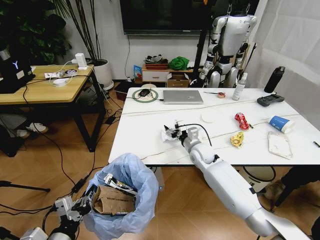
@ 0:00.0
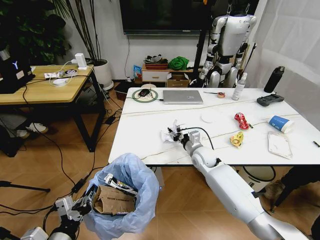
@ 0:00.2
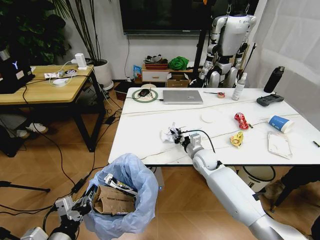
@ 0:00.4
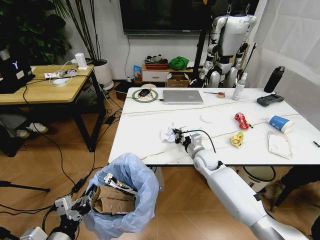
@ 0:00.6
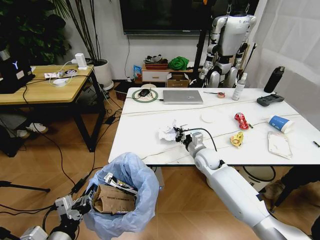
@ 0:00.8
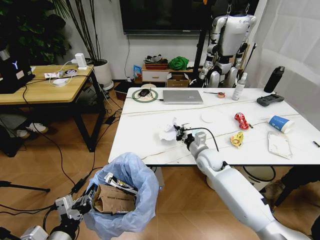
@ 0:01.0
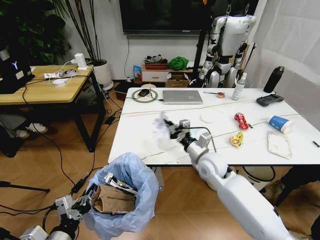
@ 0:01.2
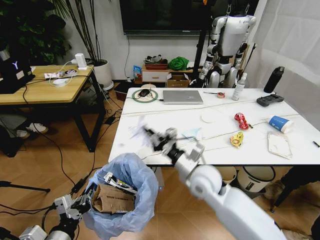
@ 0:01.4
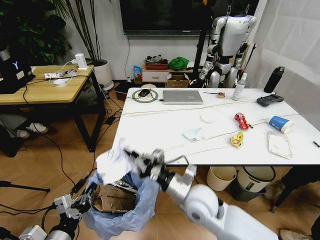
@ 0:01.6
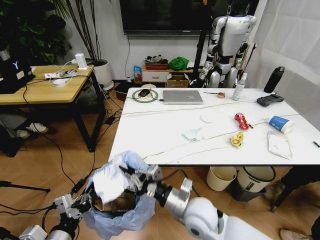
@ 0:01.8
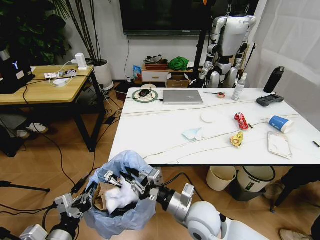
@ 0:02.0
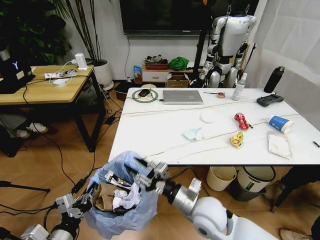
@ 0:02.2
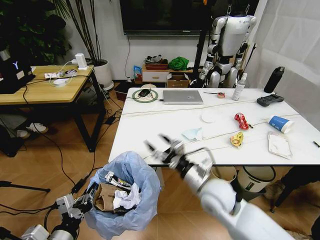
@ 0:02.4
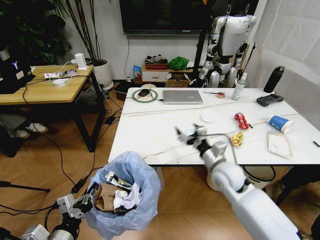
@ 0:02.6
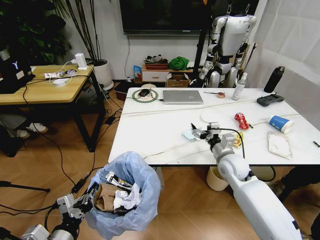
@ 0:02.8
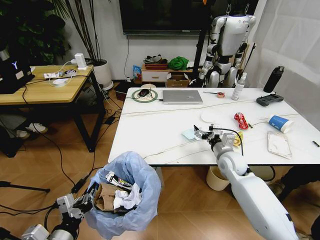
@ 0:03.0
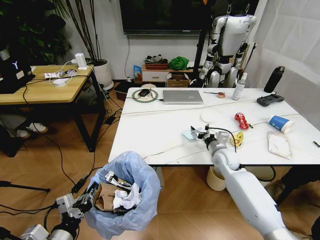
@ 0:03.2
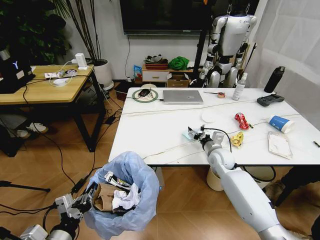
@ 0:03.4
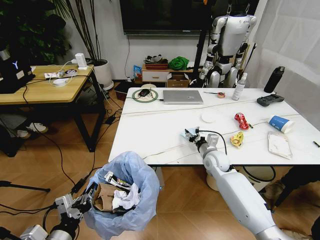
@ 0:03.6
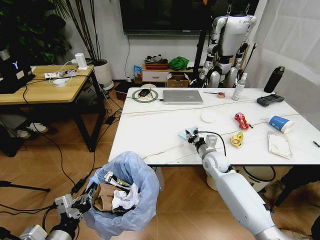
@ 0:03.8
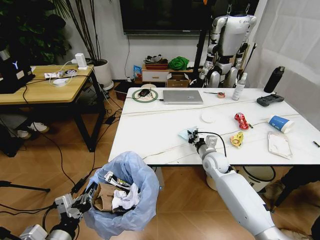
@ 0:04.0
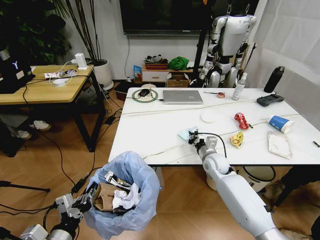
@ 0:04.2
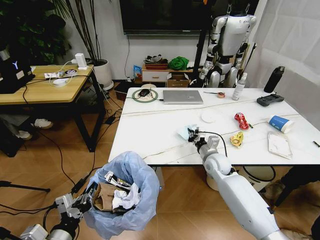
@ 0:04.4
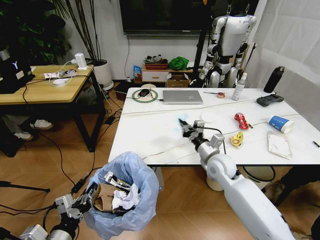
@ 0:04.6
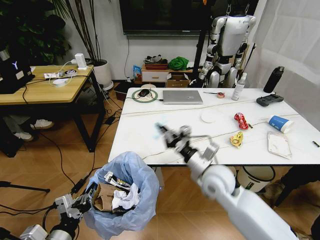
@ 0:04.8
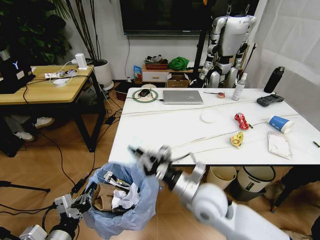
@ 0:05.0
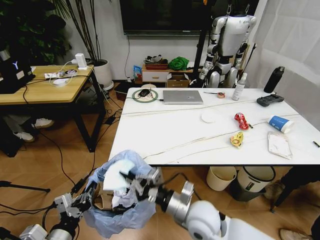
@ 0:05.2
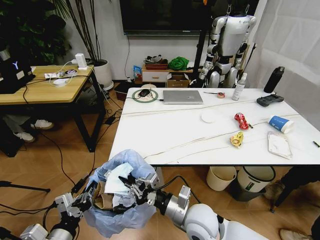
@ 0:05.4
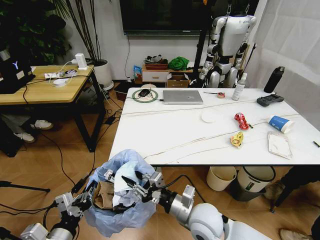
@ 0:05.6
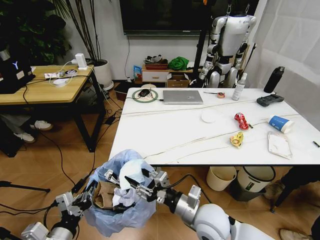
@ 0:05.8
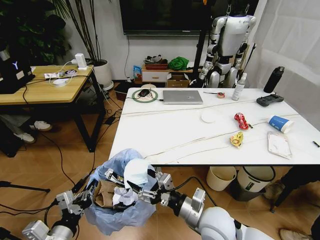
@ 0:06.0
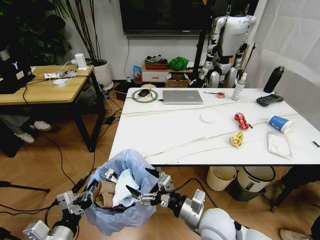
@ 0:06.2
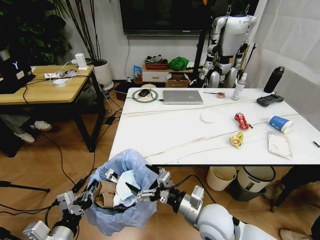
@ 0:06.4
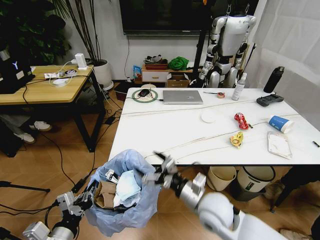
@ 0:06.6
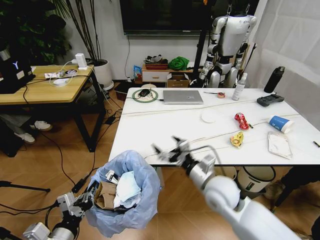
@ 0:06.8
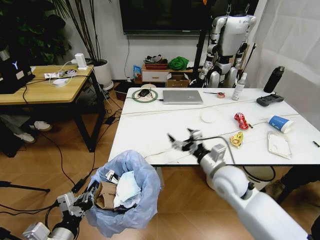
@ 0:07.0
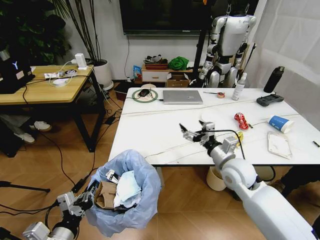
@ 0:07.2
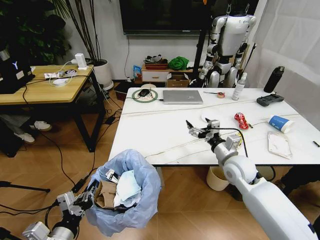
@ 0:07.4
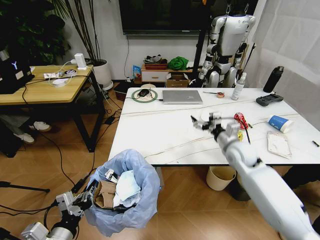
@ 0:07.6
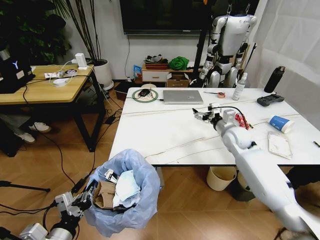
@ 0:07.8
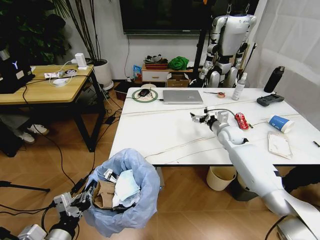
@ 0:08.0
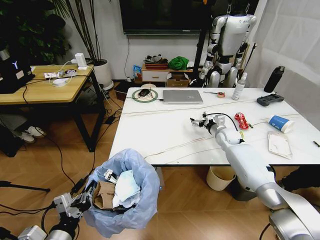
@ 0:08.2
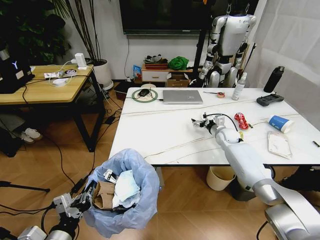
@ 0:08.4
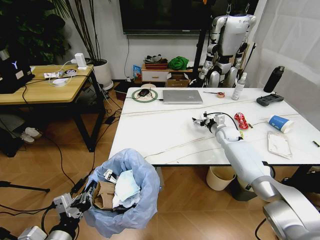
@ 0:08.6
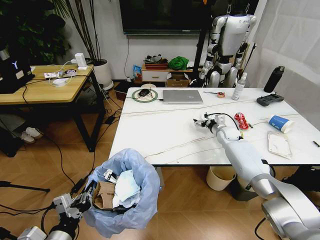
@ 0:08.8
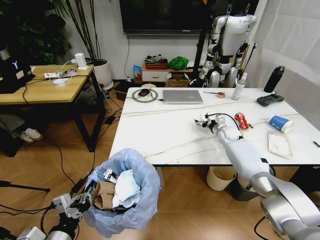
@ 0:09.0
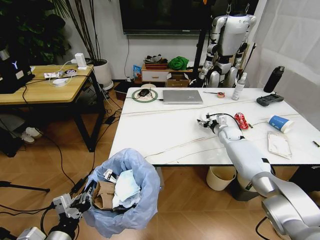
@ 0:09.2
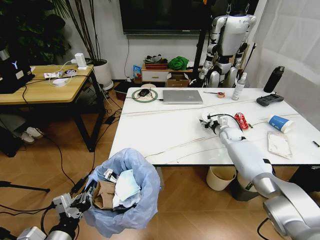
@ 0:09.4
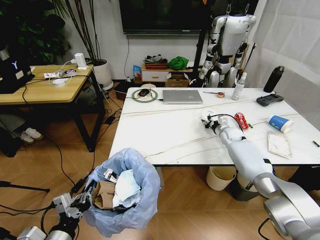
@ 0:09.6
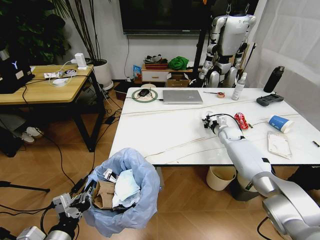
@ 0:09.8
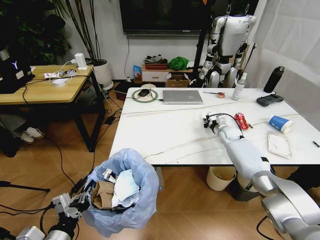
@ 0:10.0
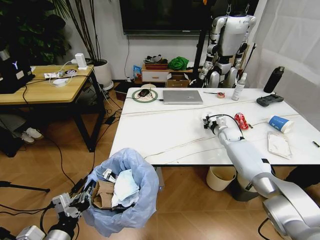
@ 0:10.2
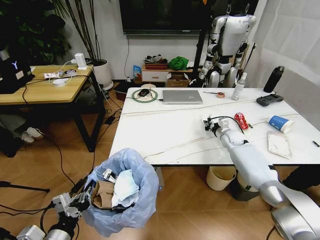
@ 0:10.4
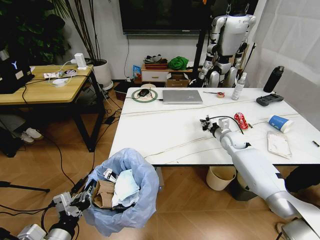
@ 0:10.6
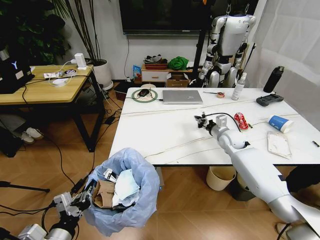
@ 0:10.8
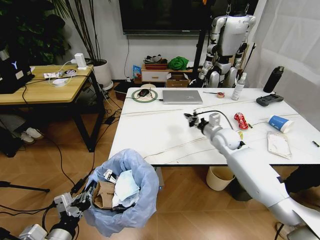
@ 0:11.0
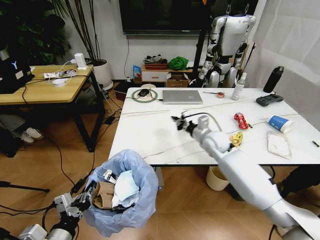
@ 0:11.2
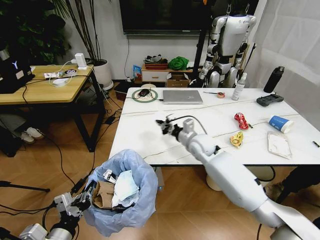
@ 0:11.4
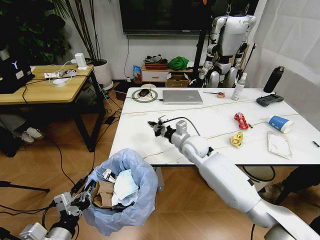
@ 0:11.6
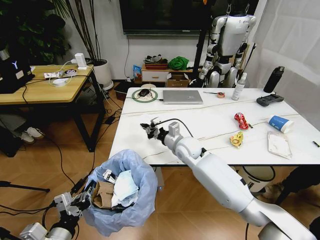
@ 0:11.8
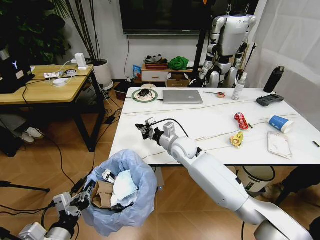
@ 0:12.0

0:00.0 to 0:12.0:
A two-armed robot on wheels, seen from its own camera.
Task of the whole recording: Pick up the trash bin and place the trash from the table into it.
0:00.0 to 0:01.6: The right gripper is displaced backward by about 20 cm, and closes up.
0:01.6 to 0:03.0: The right gripper goes roughly 20 cm to the right and forward, and opens.
0:03.0 to 0:04.4: The right gripper moves roughly 5 cm, and closes its fingers.
0:04.4 to 0:06.0: The right gripper shifts approximately 20 cm backward, and opens its fingers.
0:06.0 to 0:07.6: The right gripper moves forward and to the right, about 25 cm.
0:07.6 to 0:09.0: The right gripper moves forward and downward, approximately 20 cm.
0:09.0 to 0:10.4: The right gripper closes.
0:10.4 to 0:12.0: The right gripper heads to the left, covering about 25 cm.

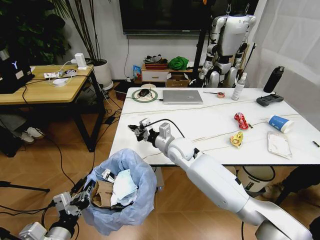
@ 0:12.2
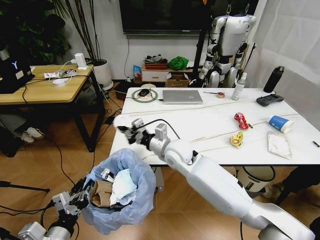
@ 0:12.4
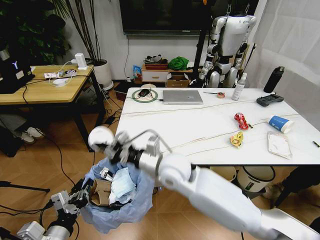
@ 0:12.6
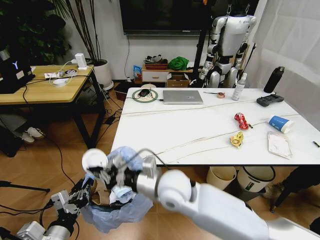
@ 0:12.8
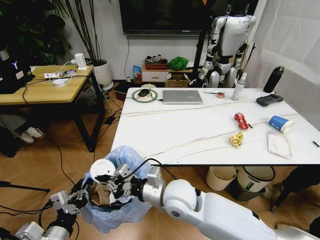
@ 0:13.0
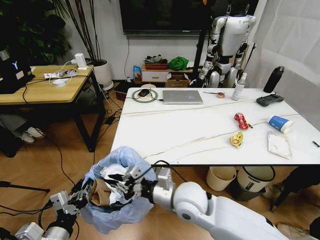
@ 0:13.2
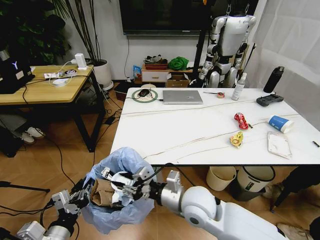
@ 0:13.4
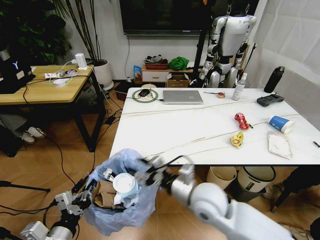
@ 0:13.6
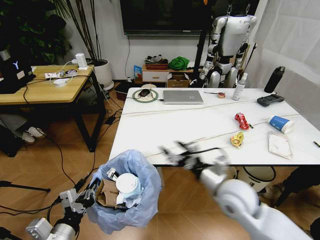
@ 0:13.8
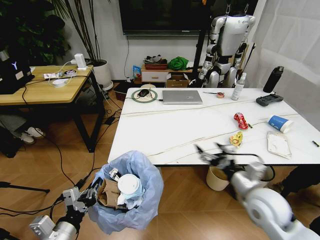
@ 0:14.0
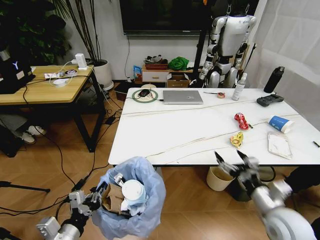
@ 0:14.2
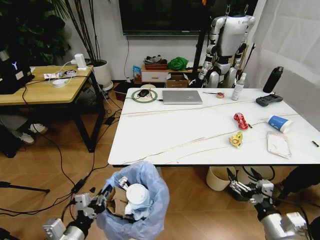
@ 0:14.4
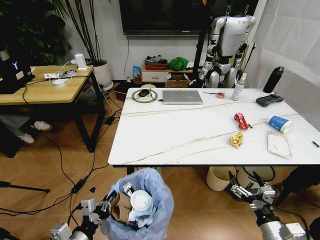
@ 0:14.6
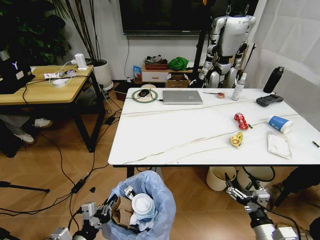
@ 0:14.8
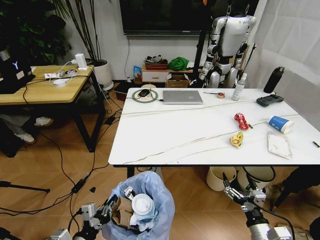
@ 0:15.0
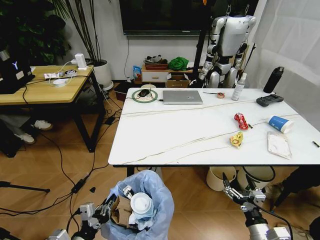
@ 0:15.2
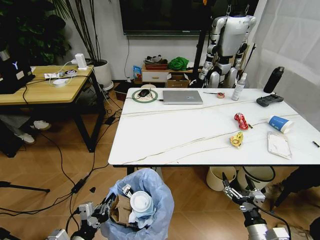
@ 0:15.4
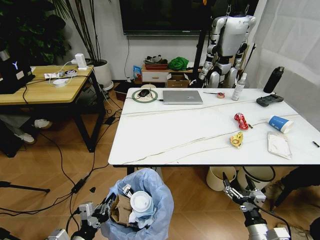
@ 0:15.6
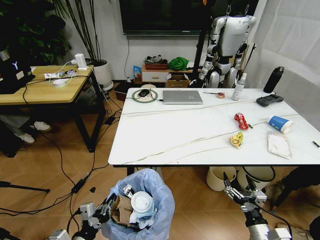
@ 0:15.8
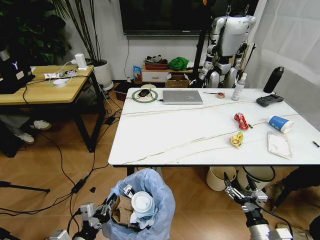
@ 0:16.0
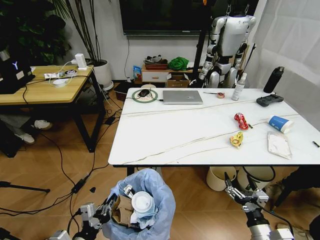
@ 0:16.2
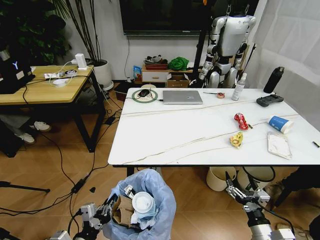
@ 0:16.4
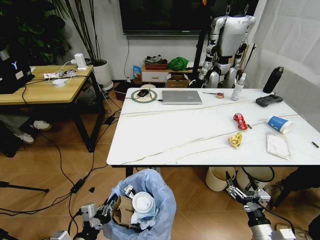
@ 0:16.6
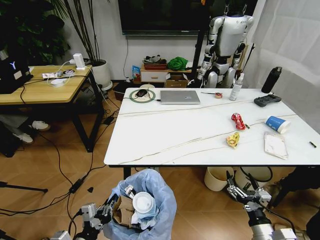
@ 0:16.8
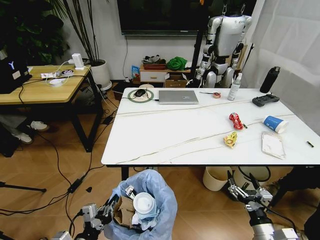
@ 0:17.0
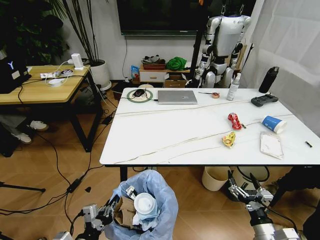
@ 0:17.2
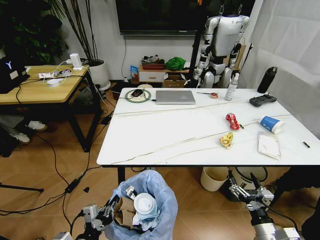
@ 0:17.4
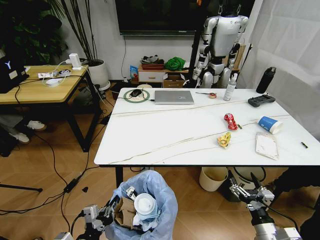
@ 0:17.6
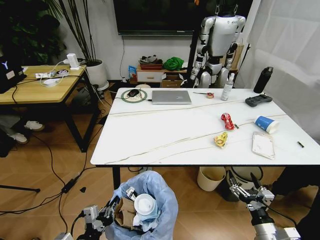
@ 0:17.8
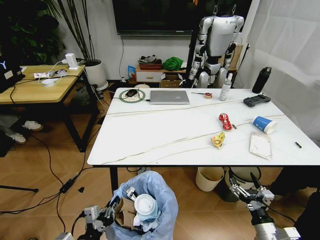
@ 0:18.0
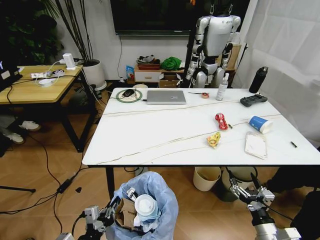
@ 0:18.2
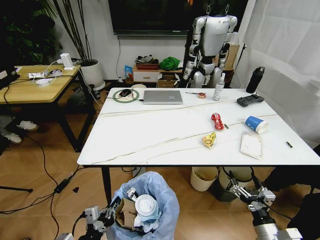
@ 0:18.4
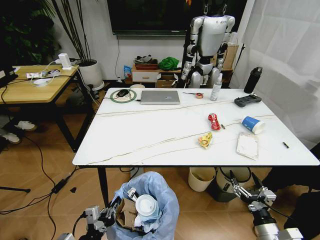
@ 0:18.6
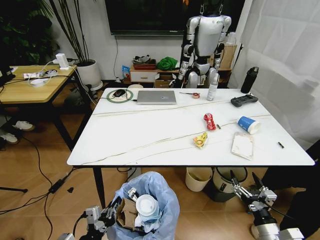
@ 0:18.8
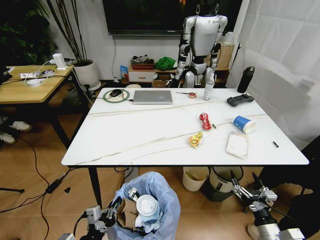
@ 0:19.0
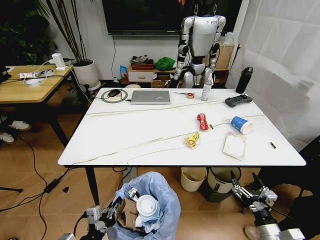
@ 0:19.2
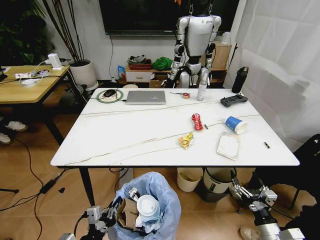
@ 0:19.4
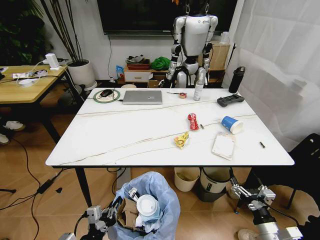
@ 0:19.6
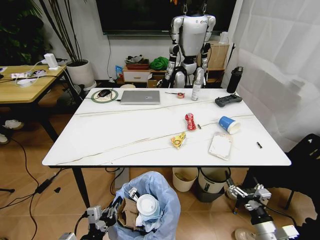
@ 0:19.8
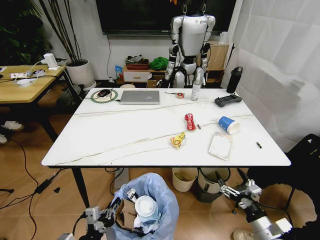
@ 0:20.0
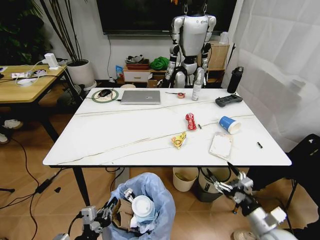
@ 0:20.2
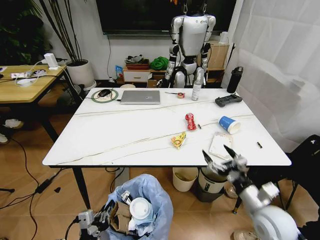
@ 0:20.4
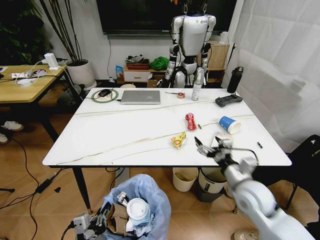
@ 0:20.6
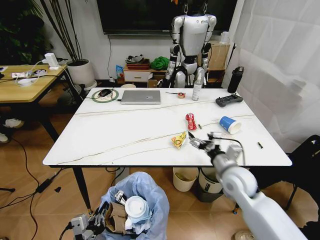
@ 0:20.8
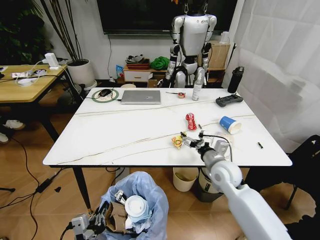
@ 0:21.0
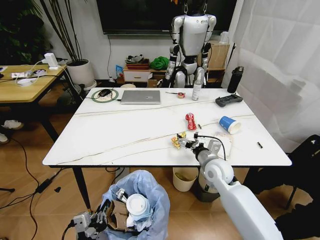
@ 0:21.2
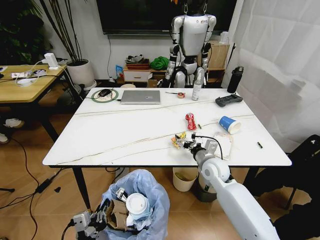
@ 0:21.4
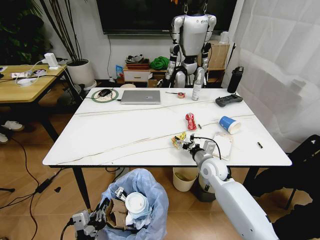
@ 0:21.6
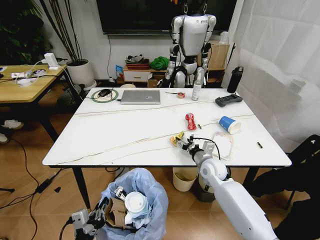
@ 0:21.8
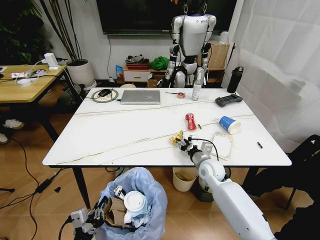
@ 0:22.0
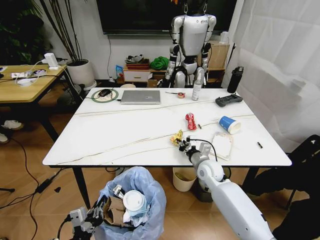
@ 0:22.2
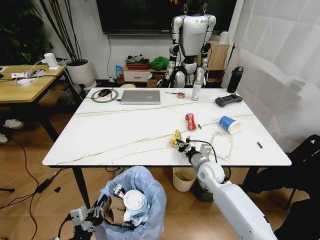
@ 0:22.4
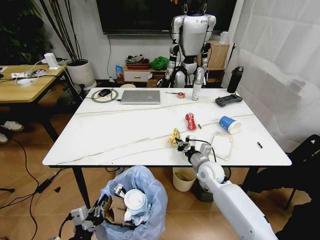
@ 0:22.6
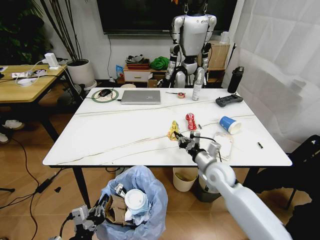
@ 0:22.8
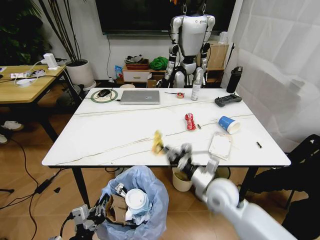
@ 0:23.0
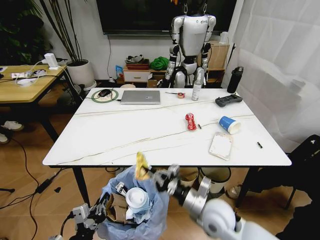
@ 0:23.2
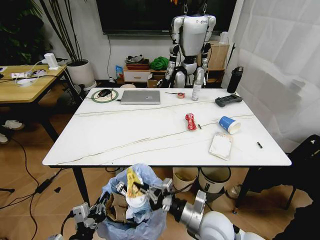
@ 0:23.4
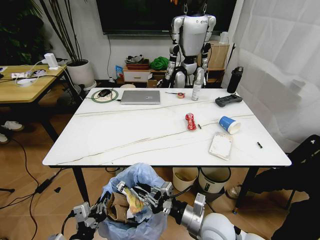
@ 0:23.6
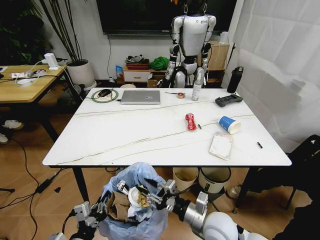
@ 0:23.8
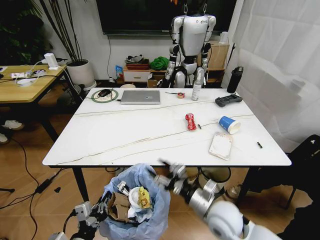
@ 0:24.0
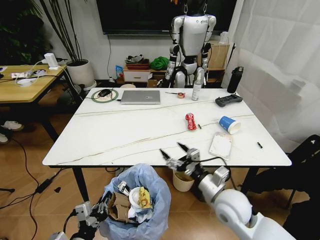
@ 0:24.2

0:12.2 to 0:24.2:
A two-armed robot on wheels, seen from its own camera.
Task of the whole recording: Pick up the trash bin and place the trash from the table into it.
0:12.2 to 0:13.8: The right gripper moves backward and to the right, about 20 cm, and opens its fingers.
0:13.8 to 0:15.2: The left gripper heads downward, covering about 5 cm. Meanwhile the right gripper is displaced downward, backward and to the right by about 25 cm.
0:15.2 to 0:16.6: Both grippers stay about where they are.
0:19.8 to 0:21.2: The right gripper moves forward and to the left, some 30 cm.
0:21.2 to 0:22.6: The right gripper changes place by about 5 cm, and closes its fingers.
0:22.6 to 0:24.2: The right gripper is displaced backward by roughly 15 cm, and opens its fingers.
